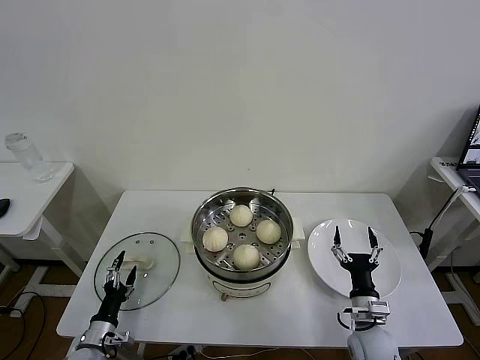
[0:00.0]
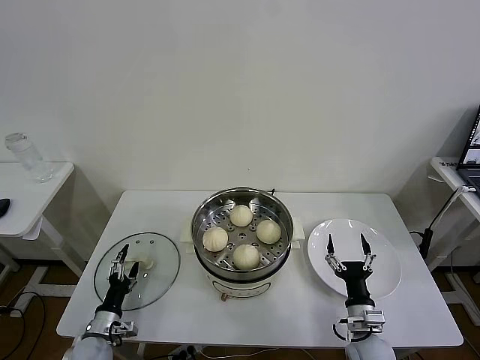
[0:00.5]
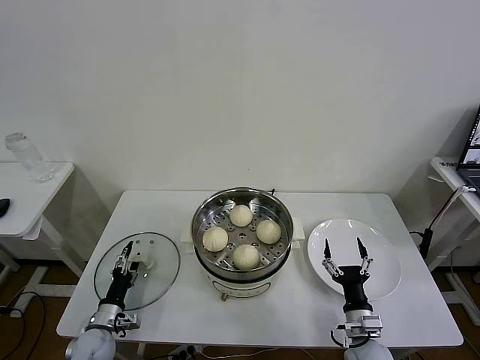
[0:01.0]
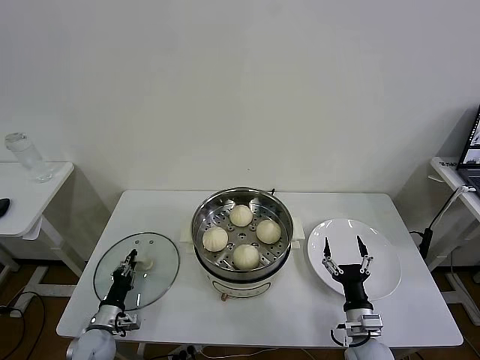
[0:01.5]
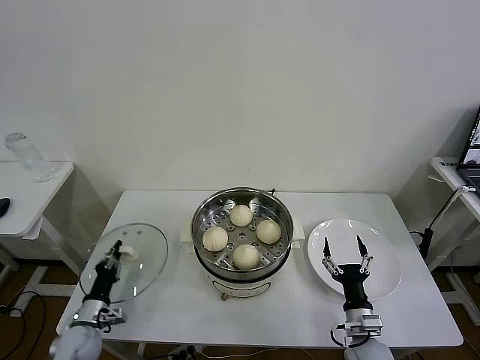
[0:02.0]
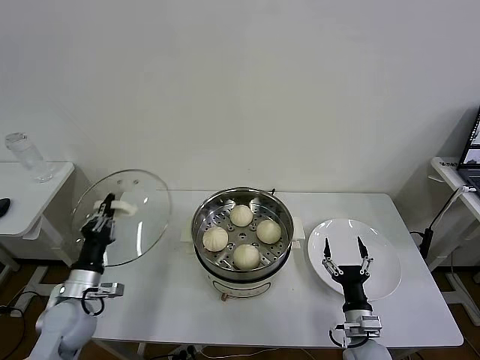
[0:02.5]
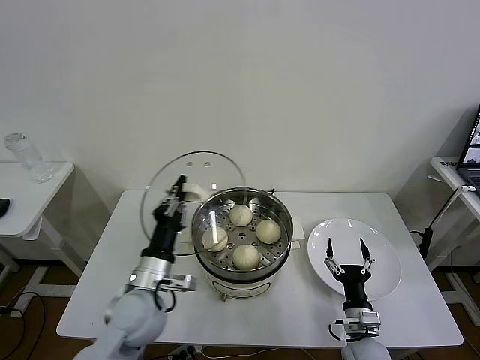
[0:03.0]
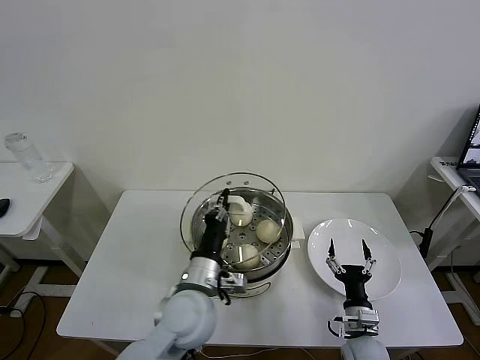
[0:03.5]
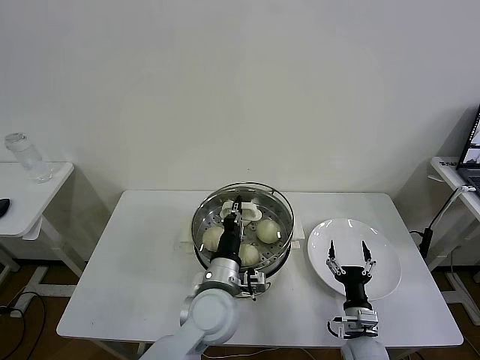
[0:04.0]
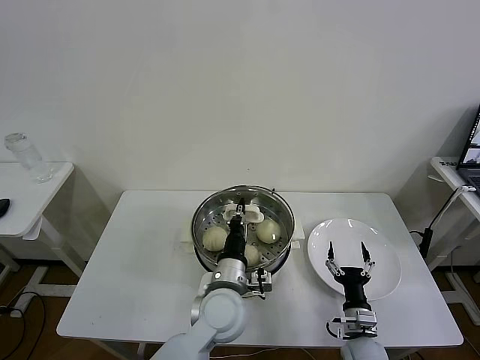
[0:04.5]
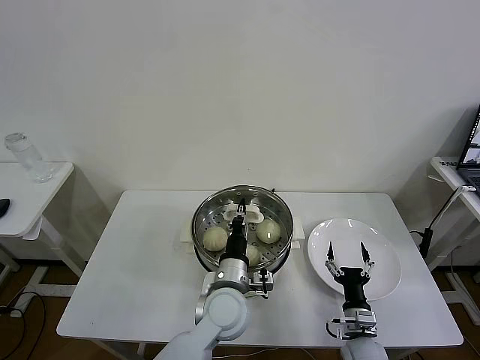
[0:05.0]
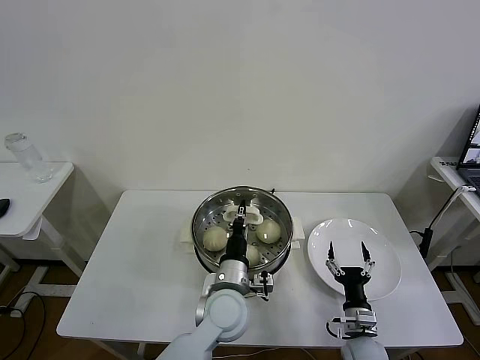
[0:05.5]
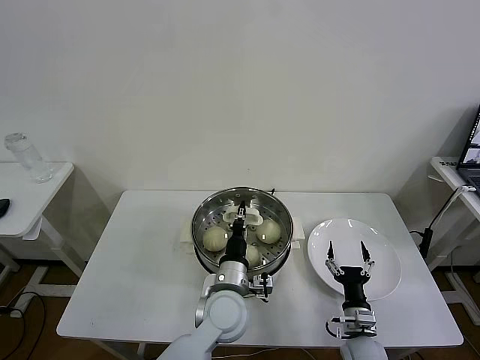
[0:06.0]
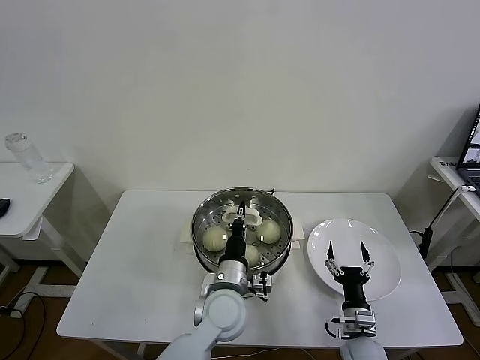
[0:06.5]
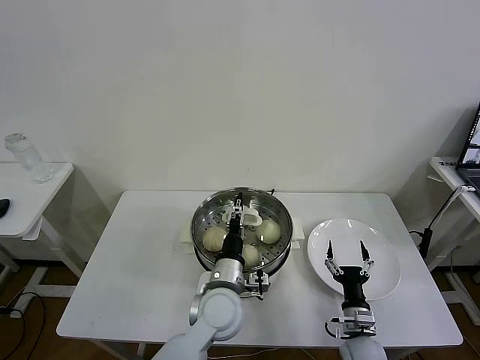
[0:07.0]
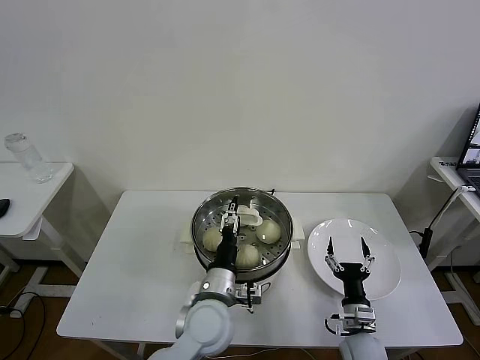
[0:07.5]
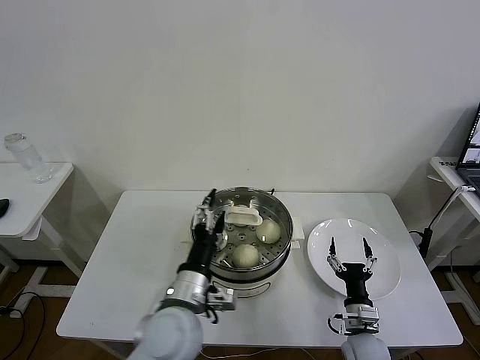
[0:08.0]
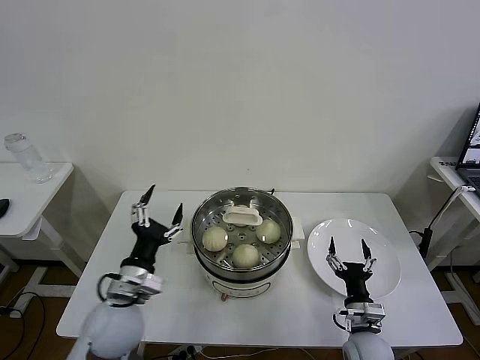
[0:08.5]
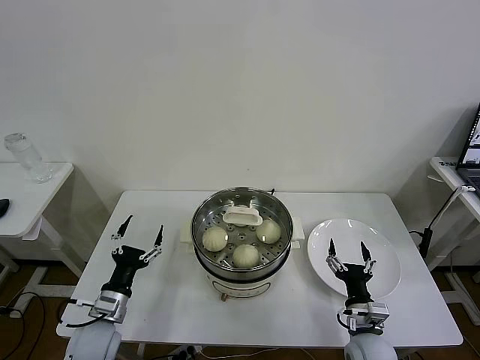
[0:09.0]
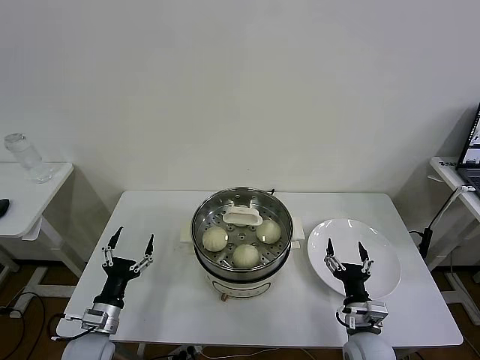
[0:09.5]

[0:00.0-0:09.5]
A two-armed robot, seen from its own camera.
Task of the whole recording: take steamed baozi put them in steamer then cover it.
Step, 0:02.0 to 0:07.0: Place the pot lid on the steamer with left gripper.
0:00.0 to 0:02.0: The left gripper ends up about 5 cm from where it was, and closes up.
0:02.0 to 0:04.0: The left gripper moves to the right and upward, approximately 40 cm.
0:04.0 to 0:05.5: The grippers make only small movements.
0:05.5 to 0:07.5: The left gripper opens.
0:07.5 to 0:09.5: The left gripper travels to the left by about 25 cm.
